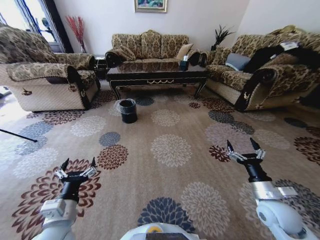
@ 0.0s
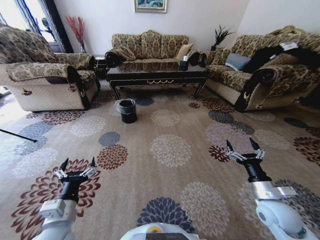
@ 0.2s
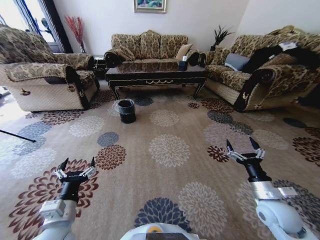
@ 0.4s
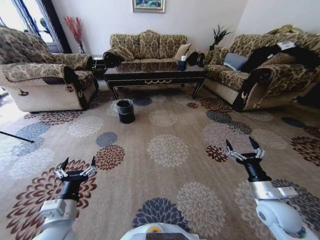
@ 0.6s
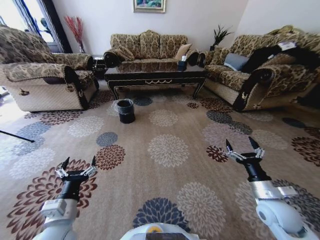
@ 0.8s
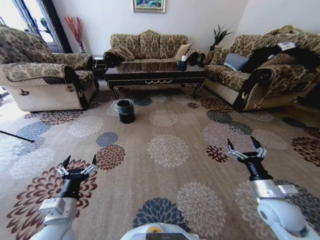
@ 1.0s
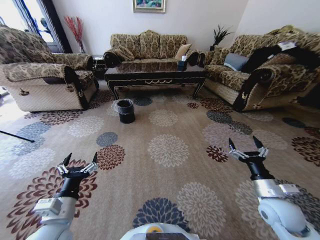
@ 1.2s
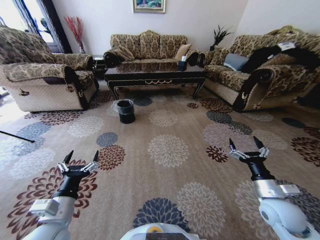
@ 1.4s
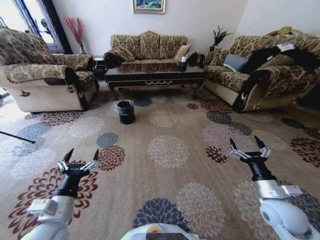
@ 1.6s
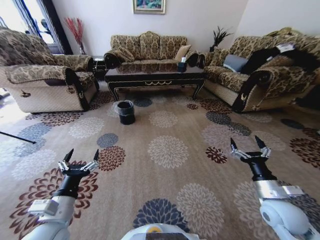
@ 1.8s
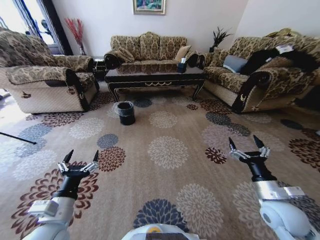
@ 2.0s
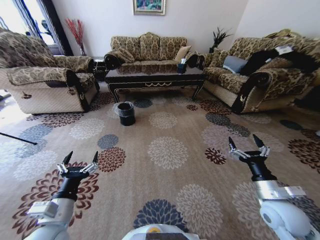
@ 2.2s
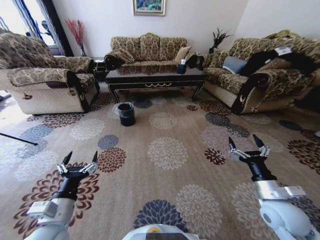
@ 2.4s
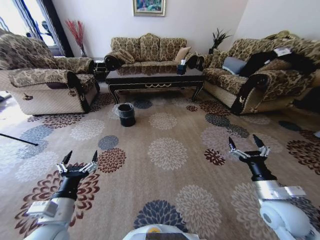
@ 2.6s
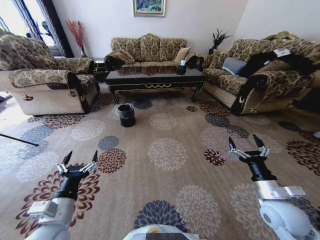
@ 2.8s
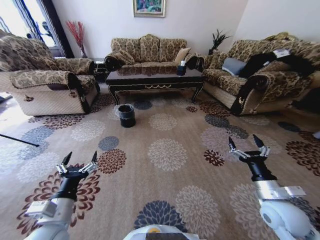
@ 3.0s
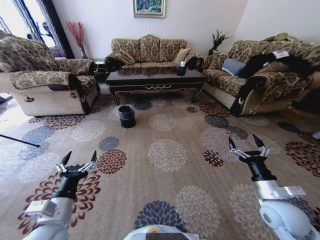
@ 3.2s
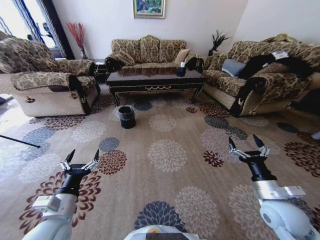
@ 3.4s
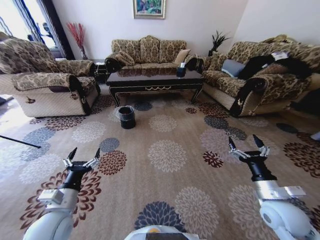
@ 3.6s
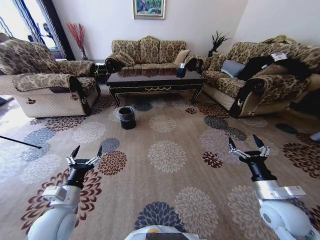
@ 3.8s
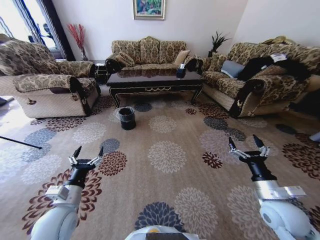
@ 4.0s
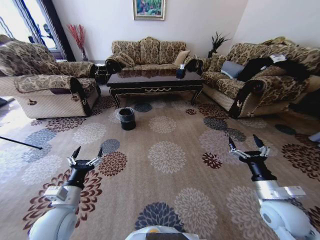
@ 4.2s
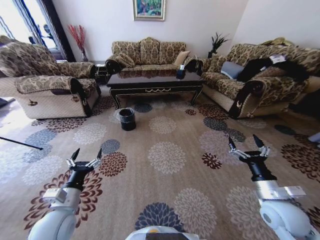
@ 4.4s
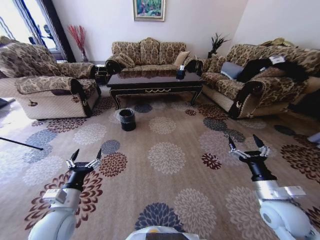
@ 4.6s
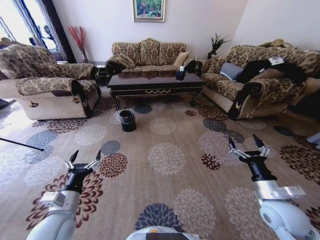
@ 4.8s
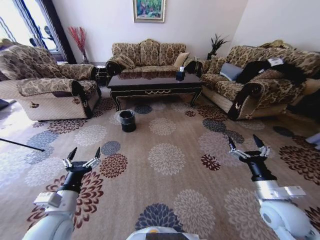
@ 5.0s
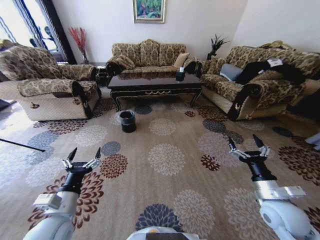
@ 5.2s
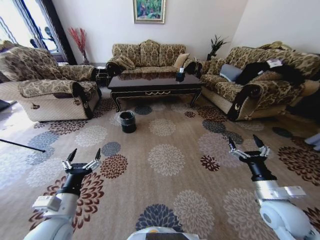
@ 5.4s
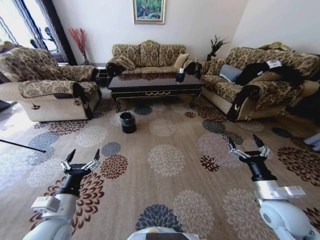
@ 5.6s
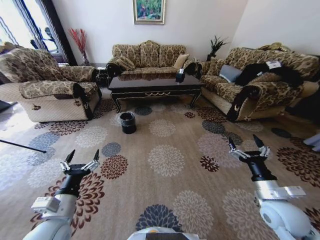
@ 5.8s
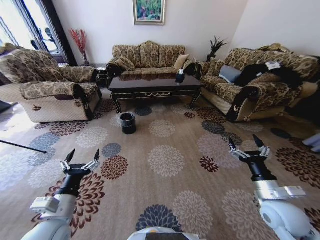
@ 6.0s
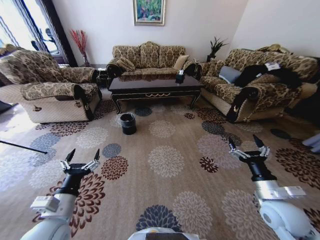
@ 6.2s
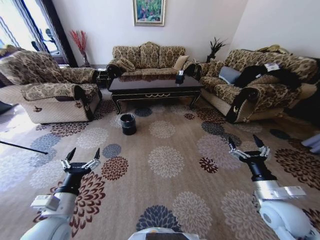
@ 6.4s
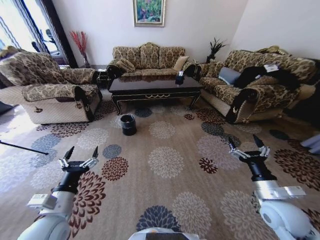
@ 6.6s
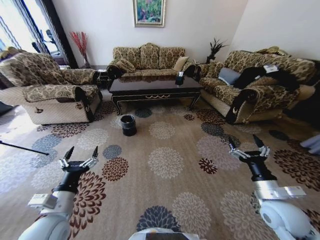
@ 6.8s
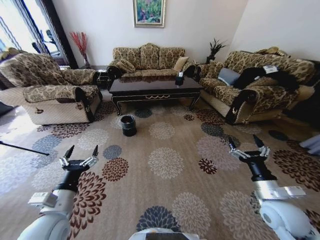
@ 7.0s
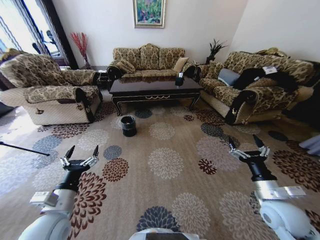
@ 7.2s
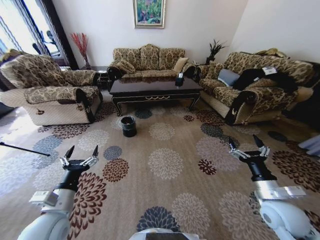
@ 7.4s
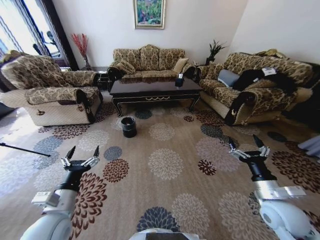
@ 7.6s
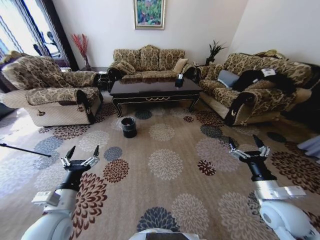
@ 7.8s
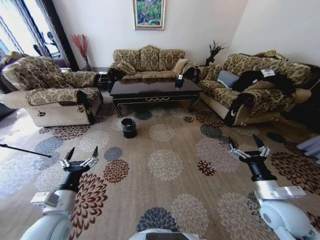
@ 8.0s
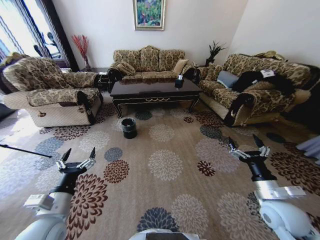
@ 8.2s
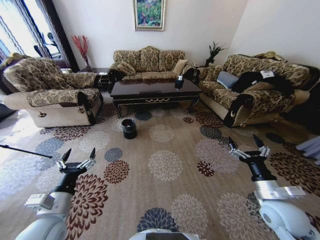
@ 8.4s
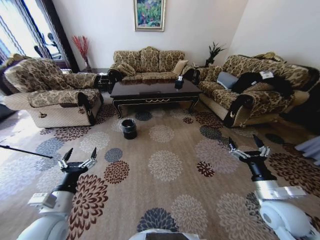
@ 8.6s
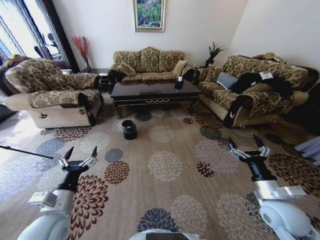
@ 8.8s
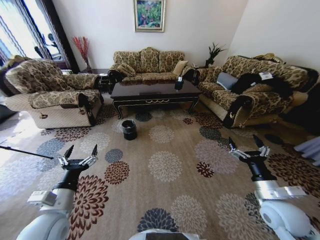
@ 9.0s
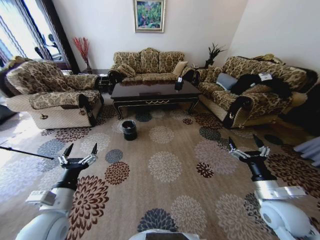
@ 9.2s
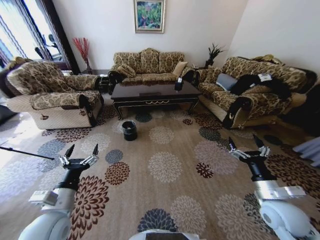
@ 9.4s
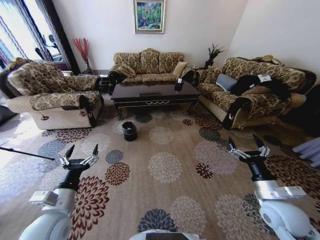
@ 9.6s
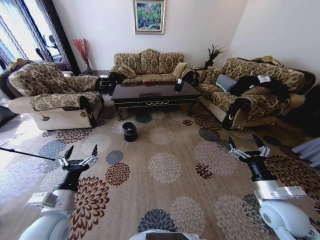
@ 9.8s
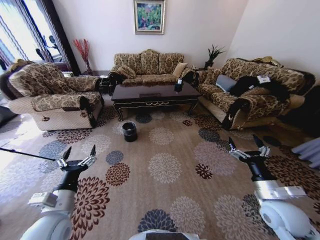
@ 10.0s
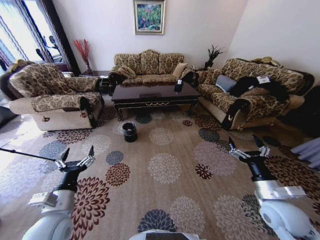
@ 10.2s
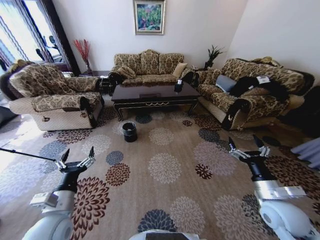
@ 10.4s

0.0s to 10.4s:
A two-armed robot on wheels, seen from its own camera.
Task of the whole recording: Move to the front of the table and pick up the trash from the floor, then place it into the trash bin.
0.0s to 1.4s: The grippers stay close to where they were, moving slightly.
3.0s to 4.4s: The left gripper changes place by about 5 cm.
9.0s to 10.4s: The grippers make only small movements.

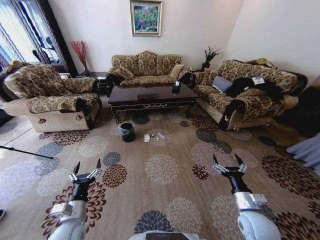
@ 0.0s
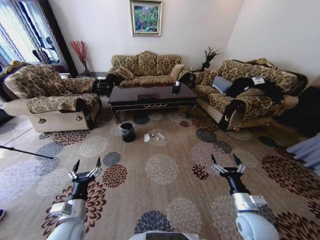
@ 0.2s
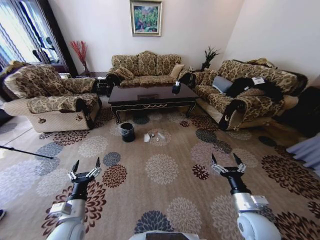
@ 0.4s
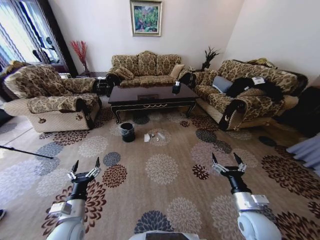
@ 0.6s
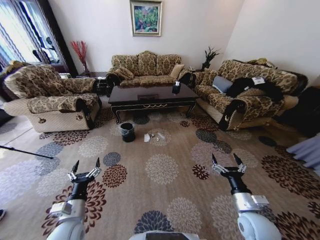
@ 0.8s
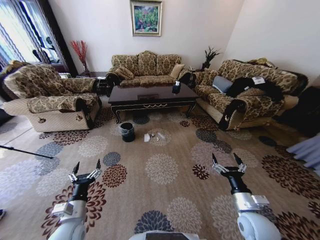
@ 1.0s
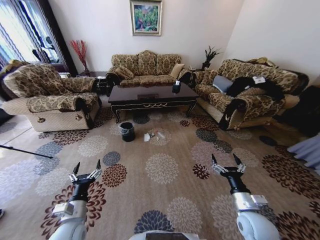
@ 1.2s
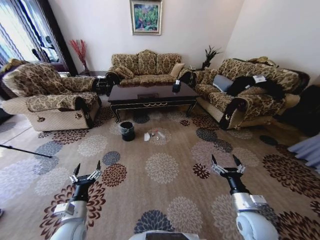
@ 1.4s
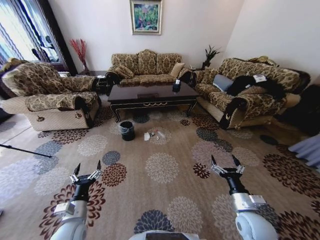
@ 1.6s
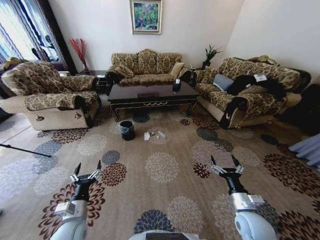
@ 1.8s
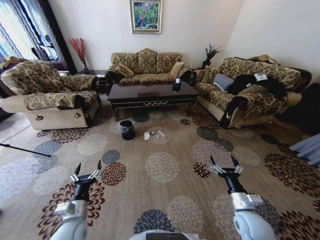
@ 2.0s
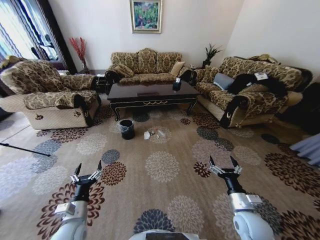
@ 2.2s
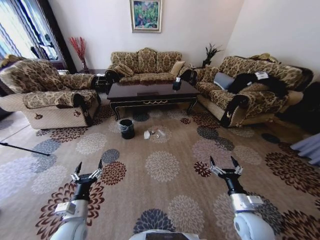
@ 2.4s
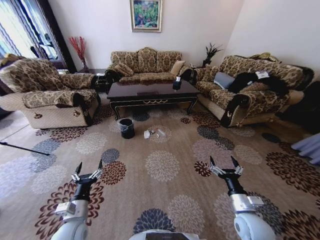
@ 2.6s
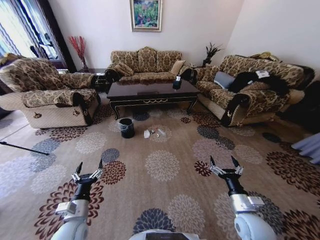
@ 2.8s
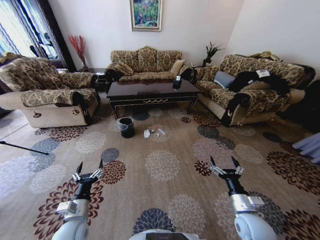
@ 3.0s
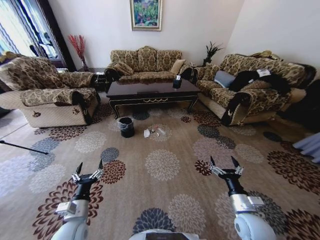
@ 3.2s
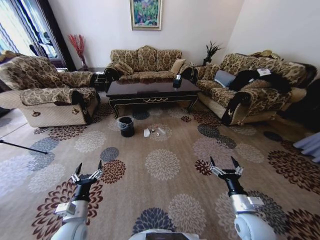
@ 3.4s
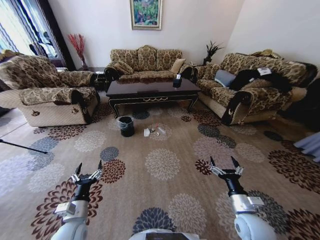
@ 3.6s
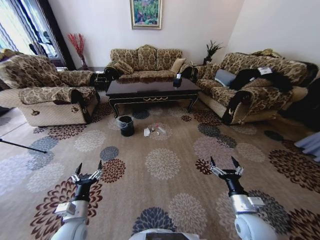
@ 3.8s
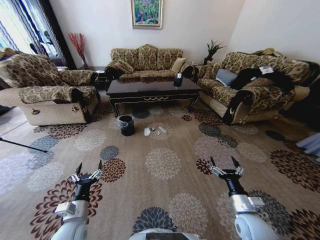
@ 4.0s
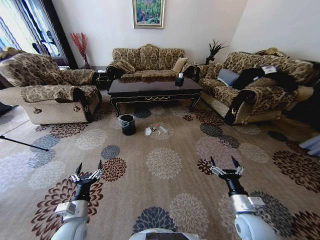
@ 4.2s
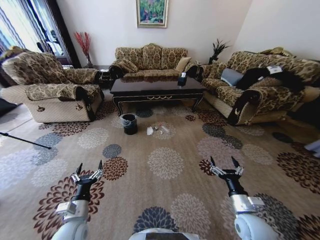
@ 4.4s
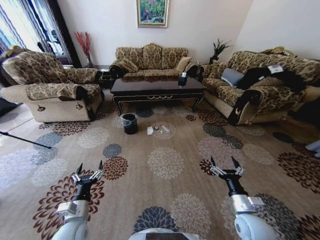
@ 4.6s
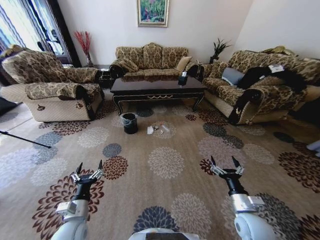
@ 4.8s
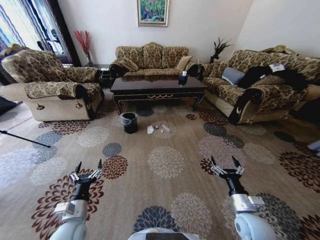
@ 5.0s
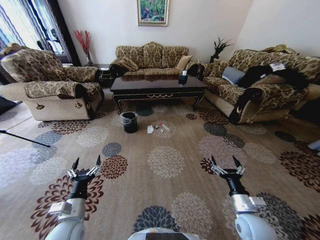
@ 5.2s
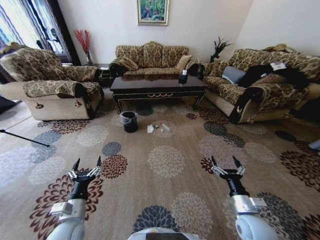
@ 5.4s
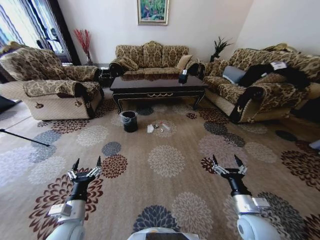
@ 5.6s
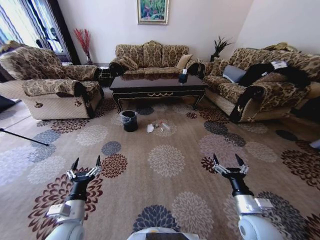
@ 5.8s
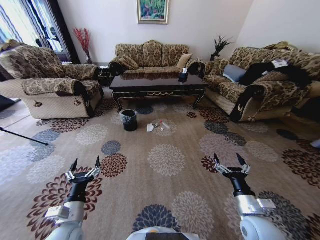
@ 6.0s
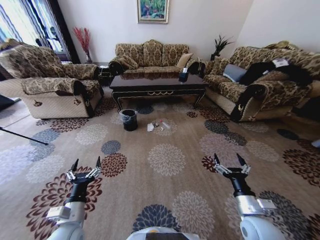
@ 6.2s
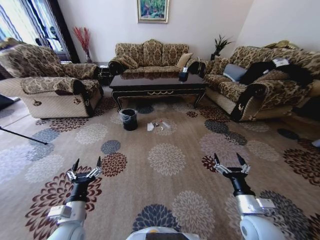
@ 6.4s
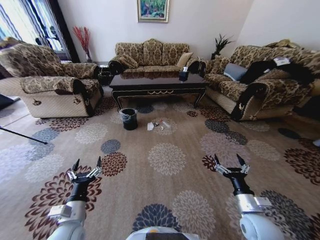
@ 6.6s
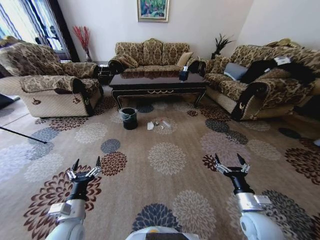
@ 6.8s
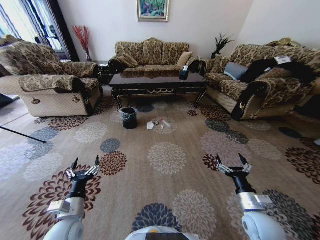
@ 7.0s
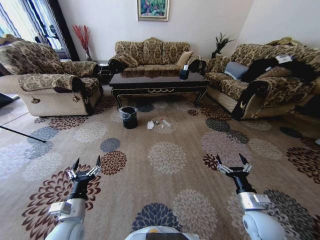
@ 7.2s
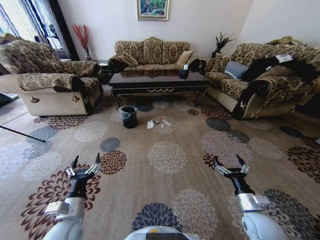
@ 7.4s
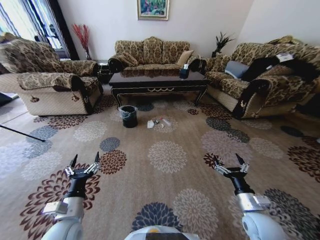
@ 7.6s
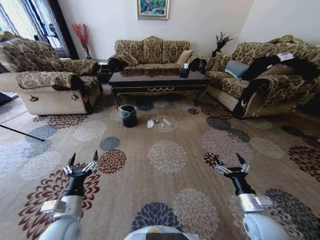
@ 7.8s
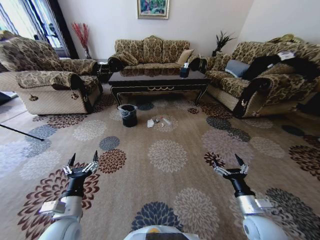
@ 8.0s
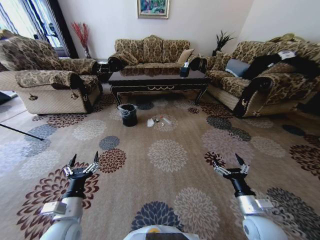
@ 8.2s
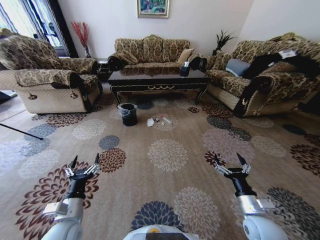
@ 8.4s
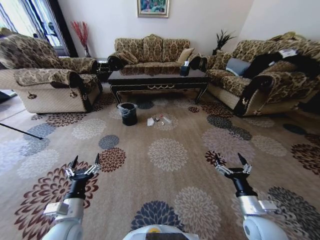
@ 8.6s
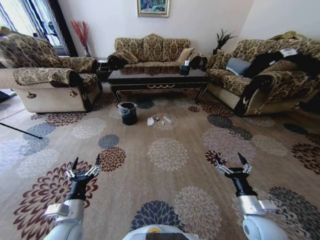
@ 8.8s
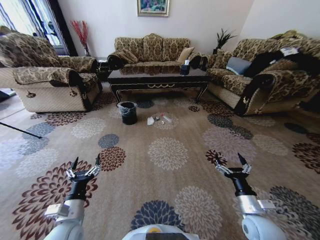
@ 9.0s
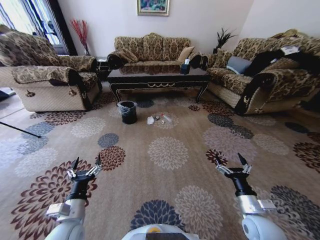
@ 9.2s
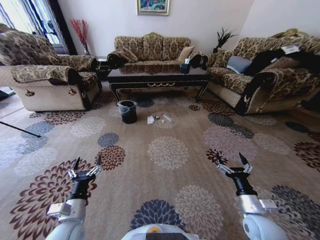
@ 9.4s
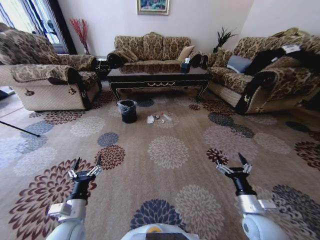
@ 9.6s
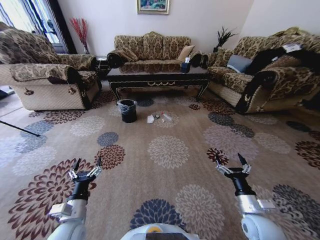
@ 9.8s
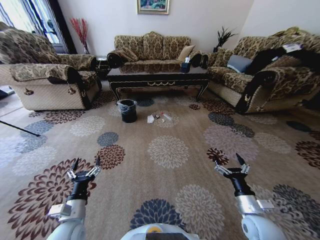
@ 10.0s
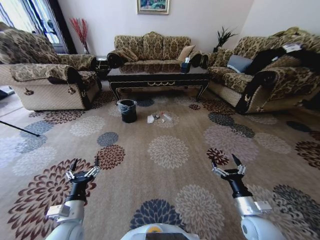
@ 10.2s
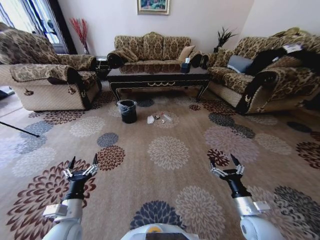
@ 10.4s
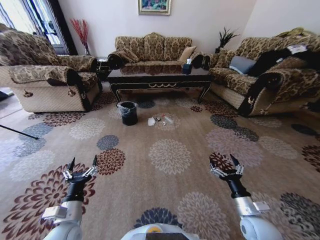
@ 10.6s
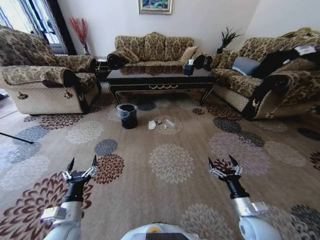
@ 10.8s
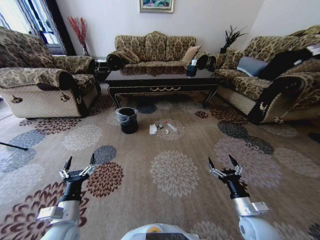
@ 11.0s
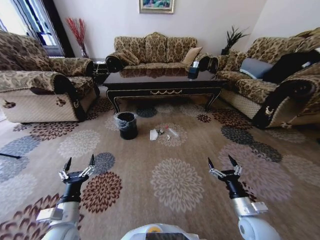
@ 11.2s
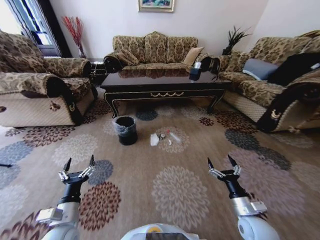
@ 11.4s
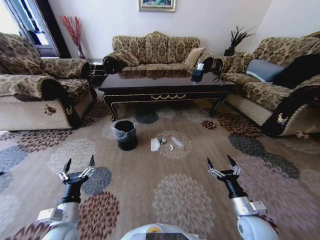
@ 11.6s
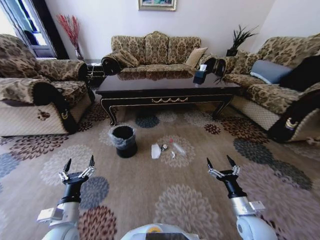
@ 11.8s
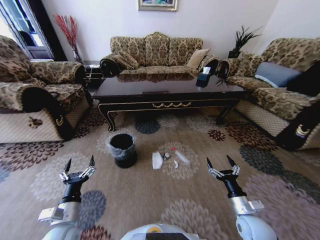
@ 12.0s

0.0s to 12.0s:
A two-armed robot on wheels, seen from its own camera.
Task of the whole recording: Move to the front of the table and pick up the trash from the floor, then place it into the trash bin.
9.0s to 10.4s: The grippers move only a little.
